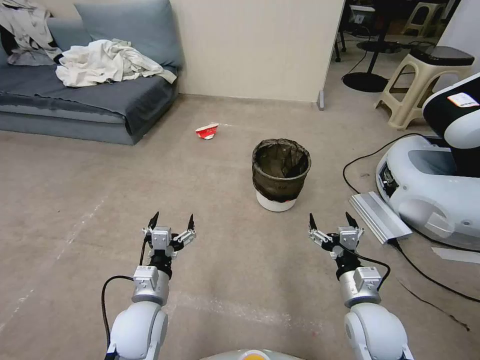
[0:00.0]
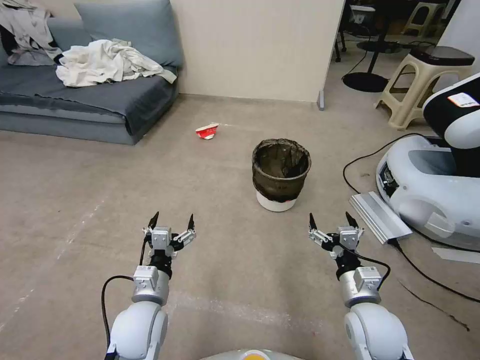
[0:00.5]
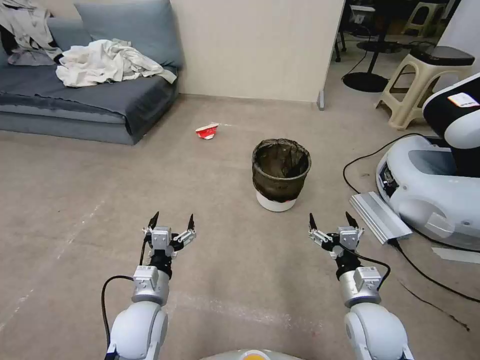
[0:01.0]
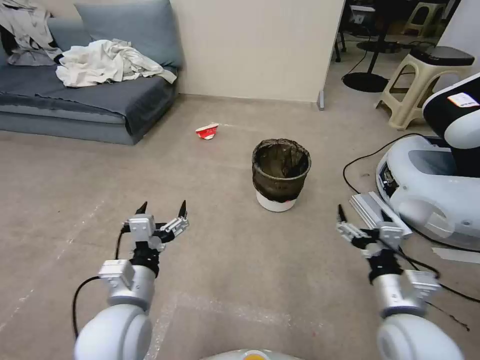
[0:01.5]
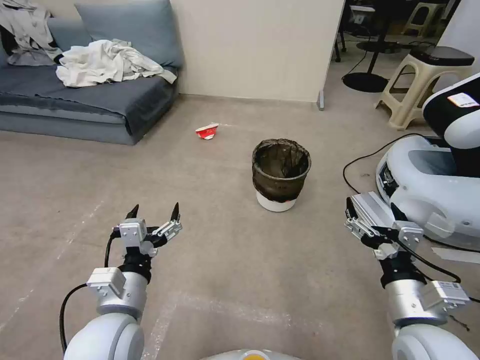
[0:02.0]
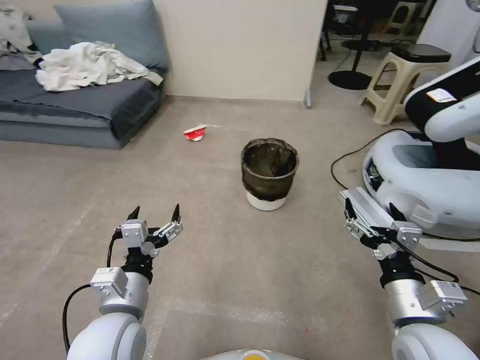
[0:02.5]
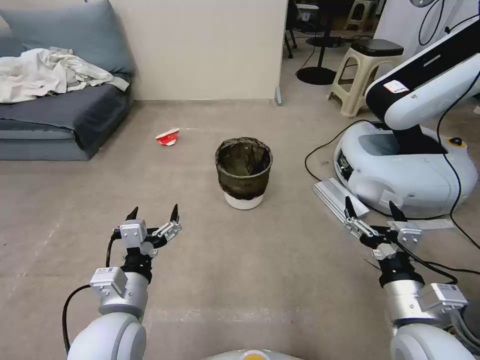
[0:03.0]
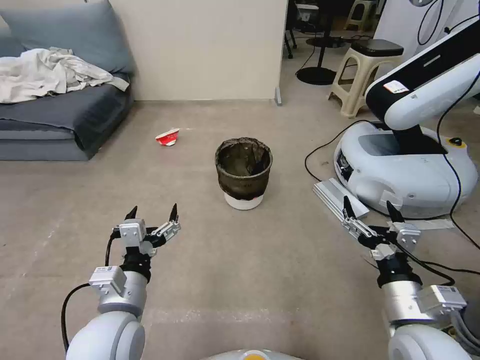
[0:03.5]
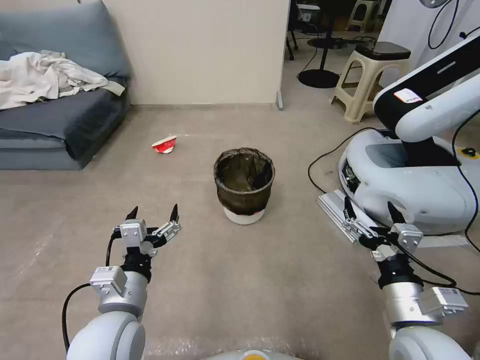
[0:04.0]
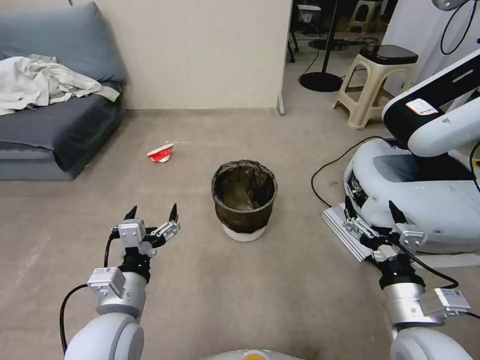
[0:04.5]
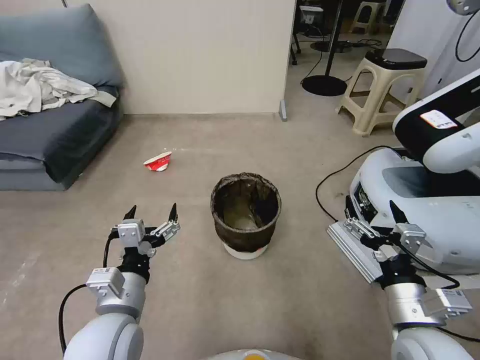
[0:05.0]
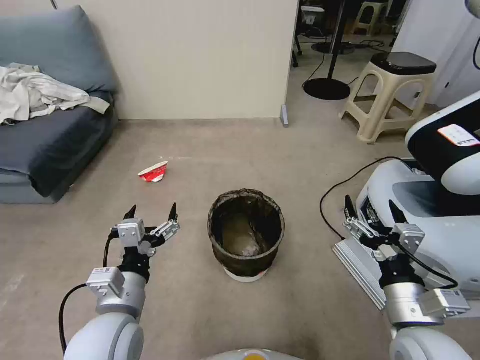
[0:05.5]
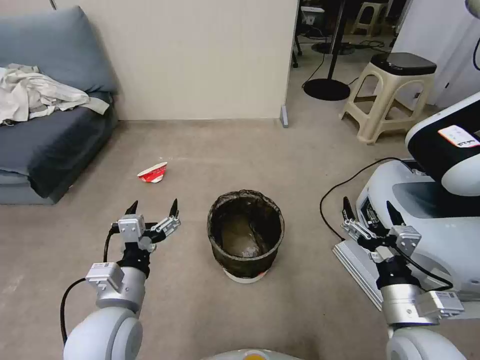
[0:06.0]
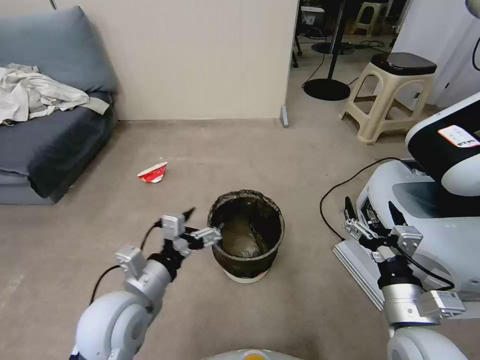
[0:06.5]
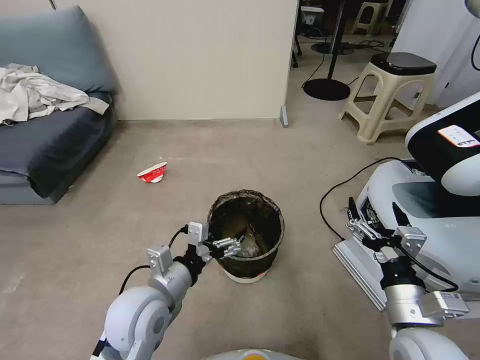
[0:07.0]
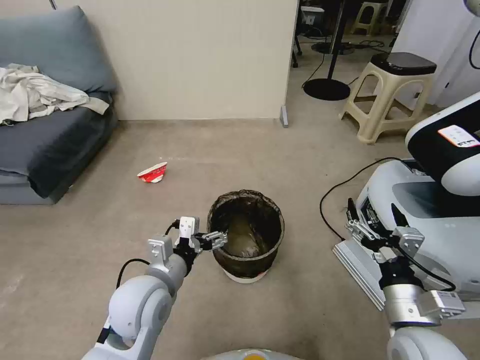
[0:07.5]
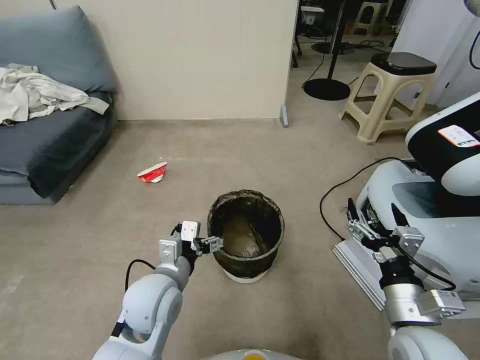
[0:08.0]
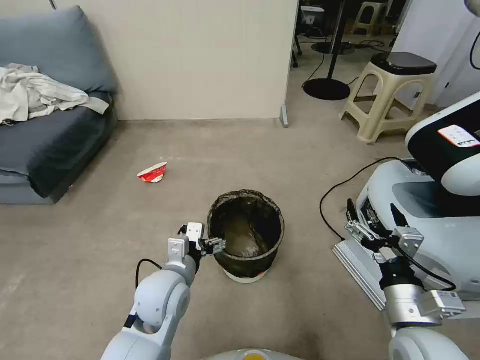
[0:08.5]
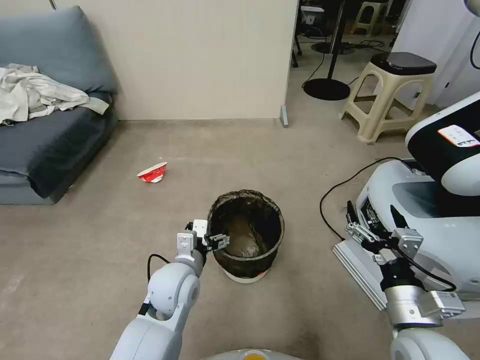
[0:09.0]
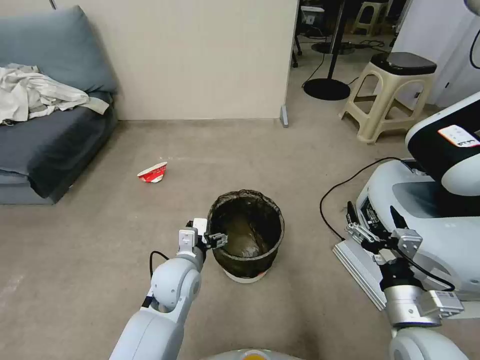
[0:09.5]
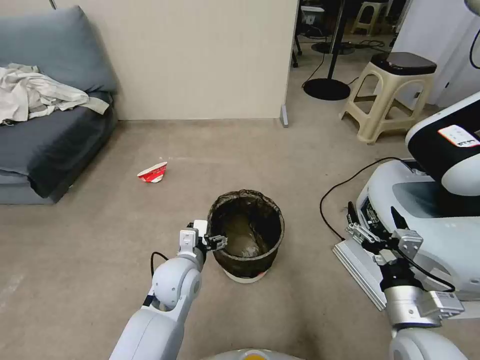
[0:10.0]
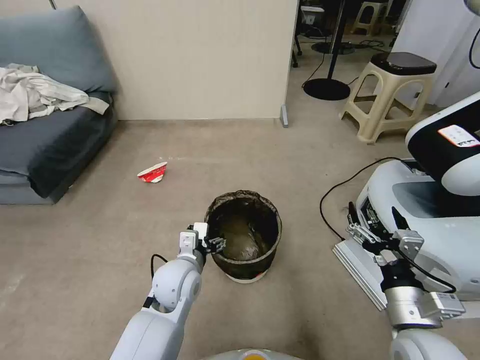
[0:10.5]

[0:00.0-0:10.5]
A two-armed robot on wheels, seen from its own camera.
Task of the whole recording: Pick up the trash can from the floor.
0:06.5 to 0:08.5: The left gripper heads downward, forward and to the right, covering some 10 cm.
0:08.5 to 0:10.5: The grippers make only small movements.

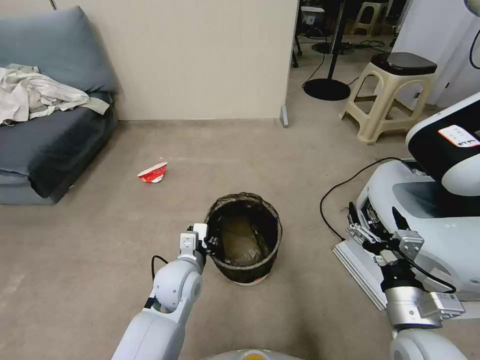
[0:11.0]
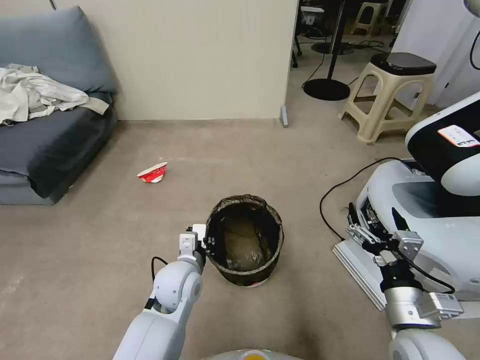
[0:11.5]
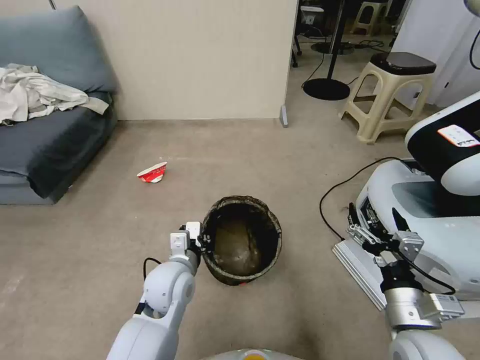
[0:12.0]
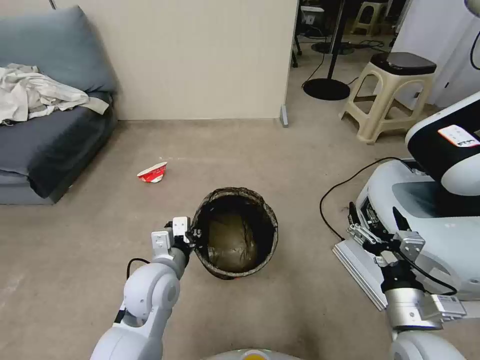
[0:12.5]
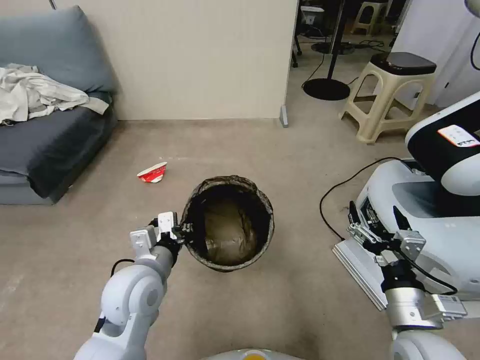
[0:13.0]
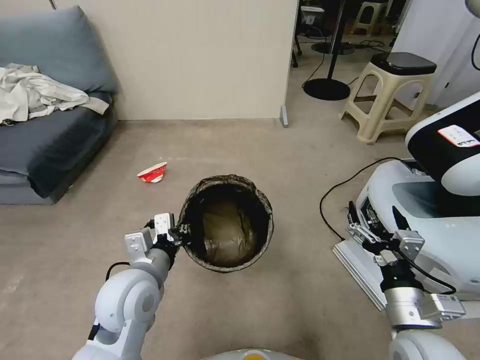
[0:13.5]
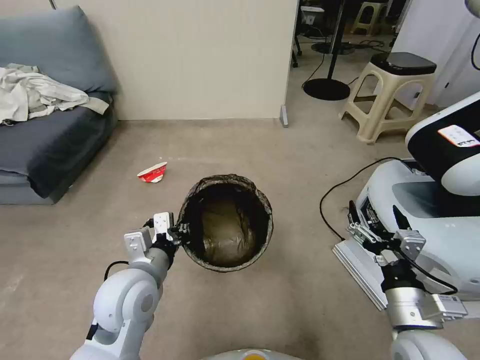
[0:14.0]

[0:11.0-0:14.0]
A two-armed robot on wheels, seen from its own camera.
Task of the whole recording: Pick up the trash can from the floor.
0:11.0 to 0:12.5: The left gripper moves upward, approximately 5 cm.
0:12.5 to 0:14.0: The left gripper ends up approximately 5 cm from where it was.

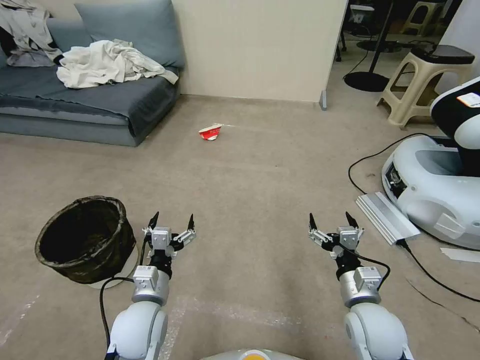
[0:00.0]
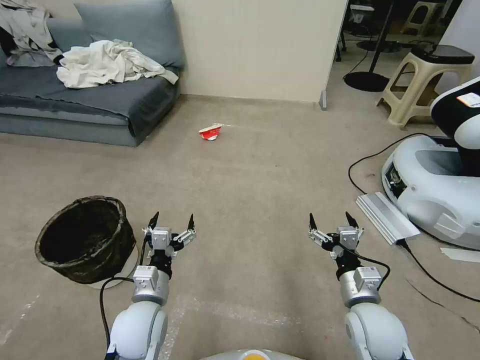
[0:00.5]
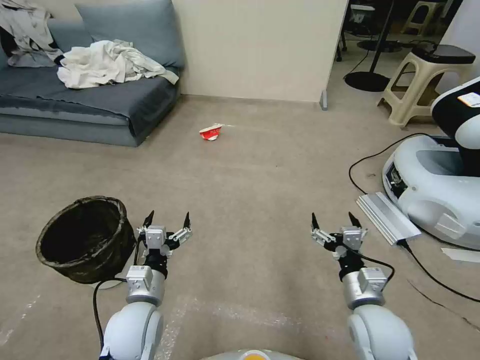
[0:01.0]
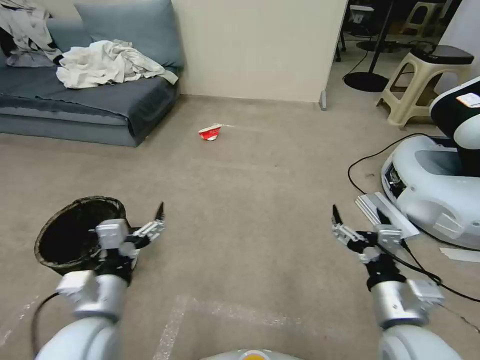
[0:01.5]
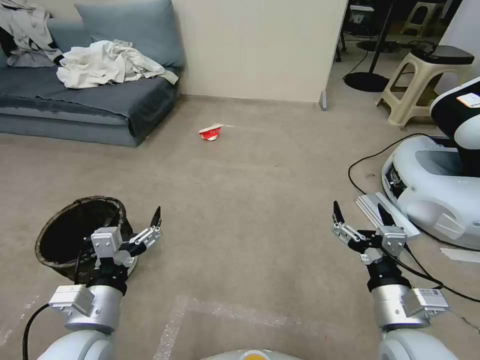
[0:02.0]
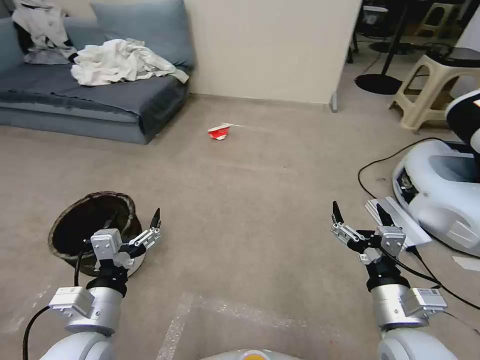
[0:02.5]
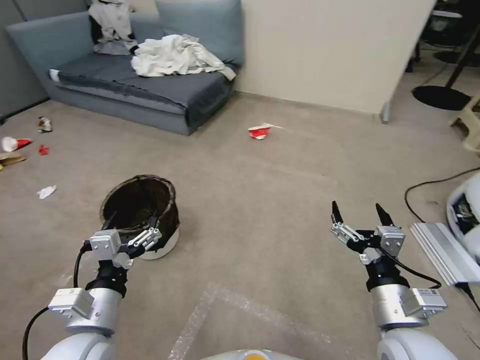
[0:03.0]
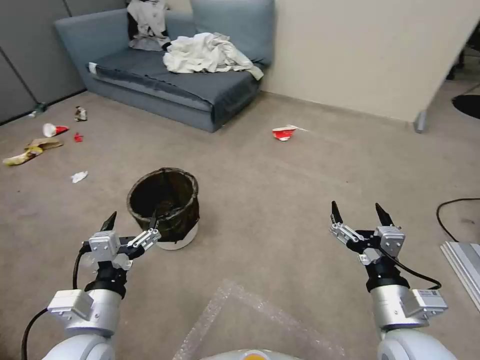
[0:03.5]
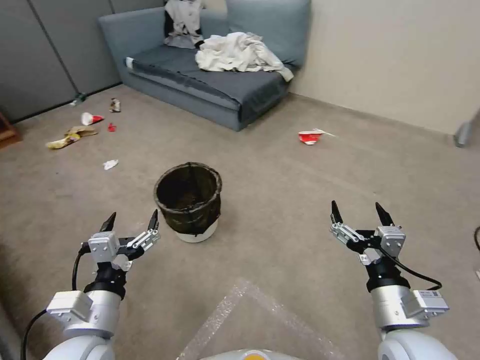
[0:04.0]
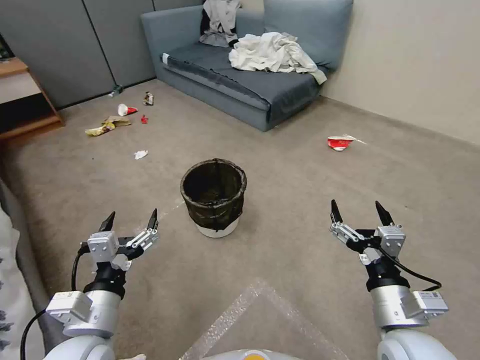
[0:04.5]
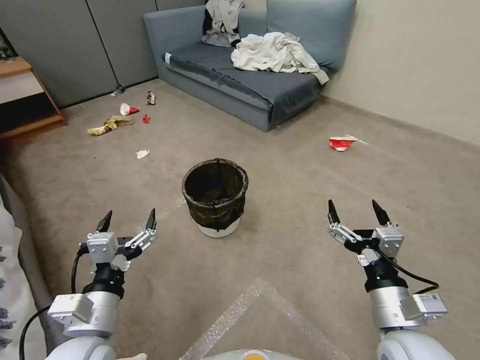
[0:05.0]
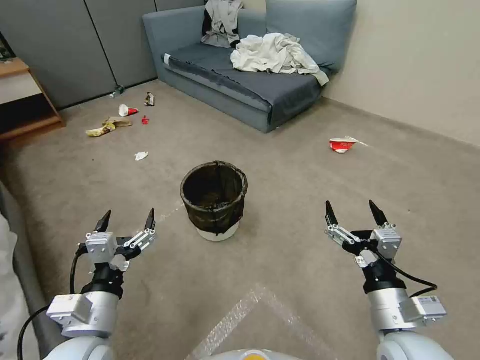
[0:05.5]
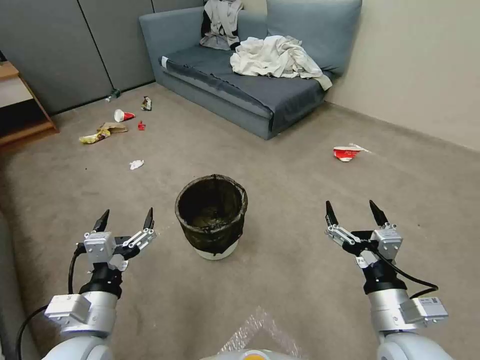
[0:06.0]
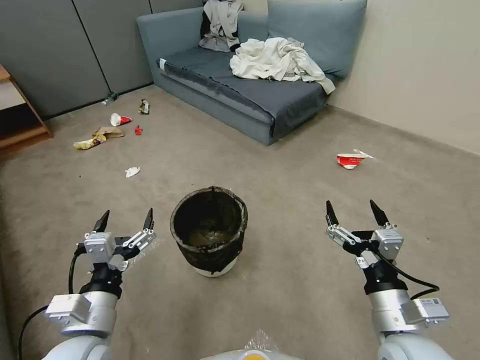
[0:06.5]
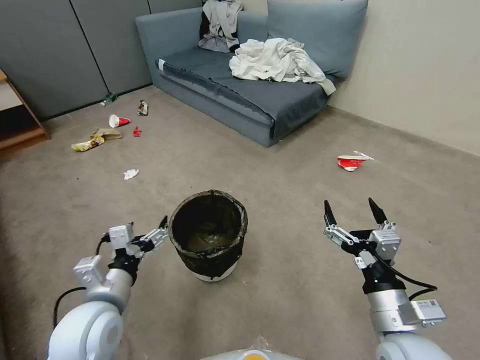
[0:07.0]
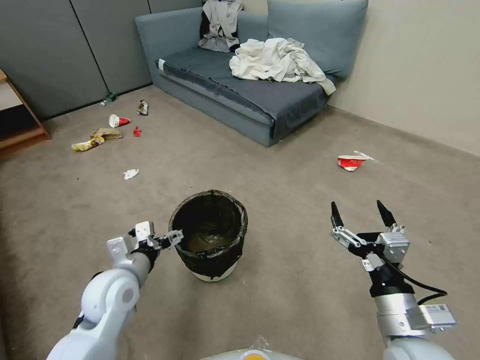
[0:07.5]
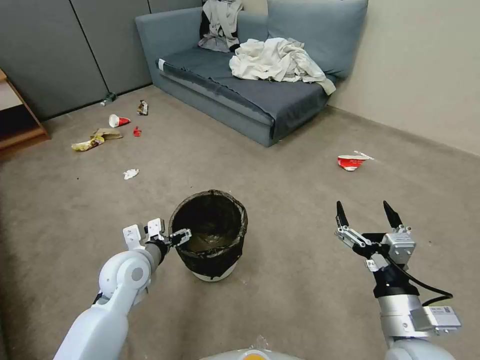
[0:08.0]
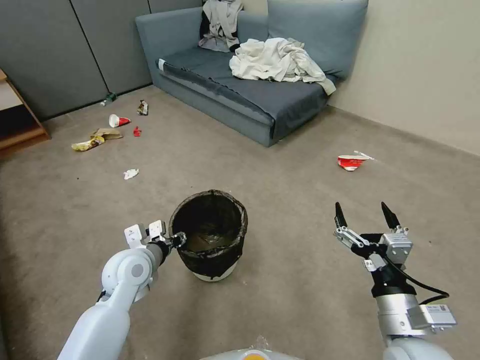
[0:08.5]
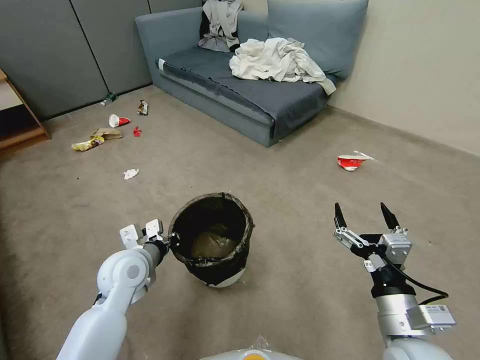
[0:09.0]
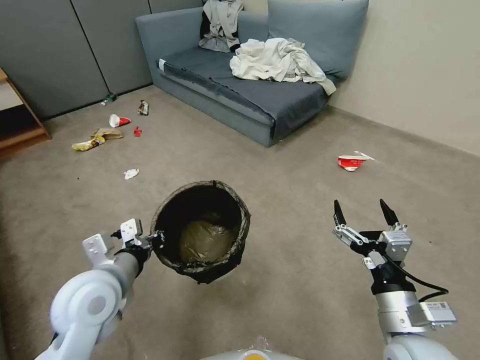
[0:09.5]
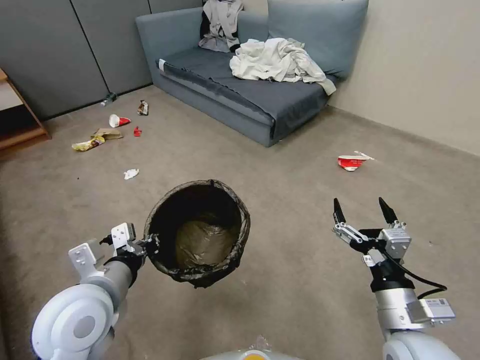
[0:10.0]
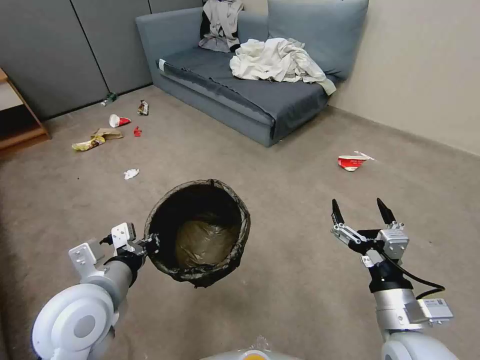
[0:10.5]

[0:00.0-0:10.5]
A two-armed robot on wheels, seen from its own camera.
Task of the whole recording: Pick up the trash can from the floor.
0:06.5 to 0:08.5: The left gripper goes about 15 cm forward, and closes its fingers.
0:08.5 to 0:10.5: The left gripper moves backward and upward, roughly 15 cm, and closes up.

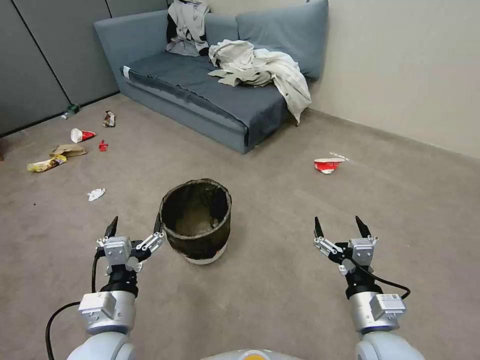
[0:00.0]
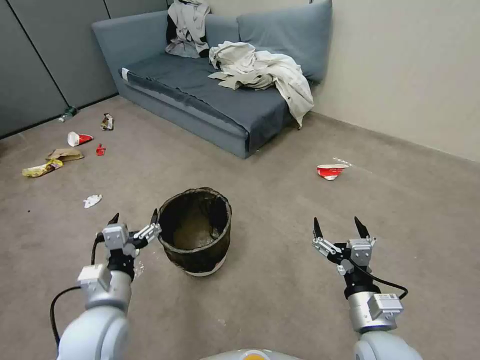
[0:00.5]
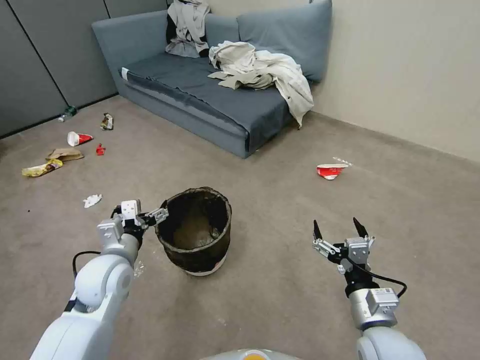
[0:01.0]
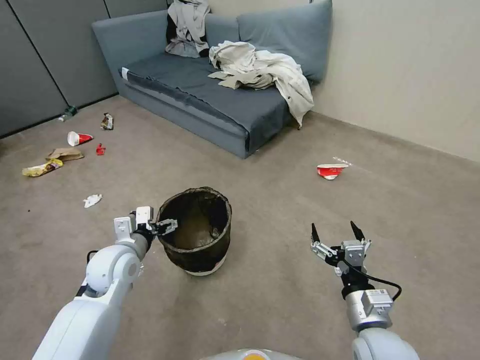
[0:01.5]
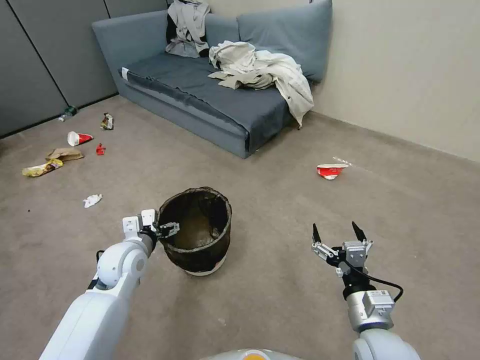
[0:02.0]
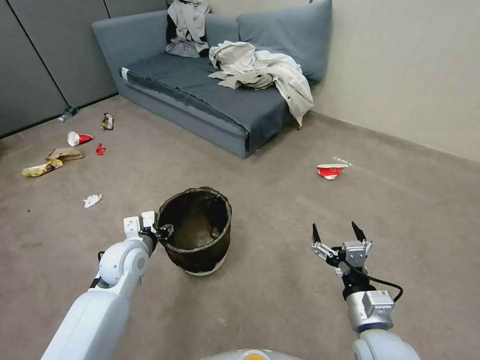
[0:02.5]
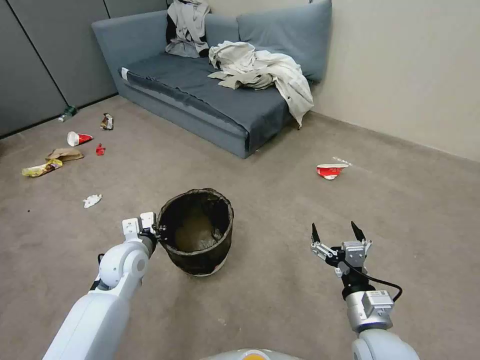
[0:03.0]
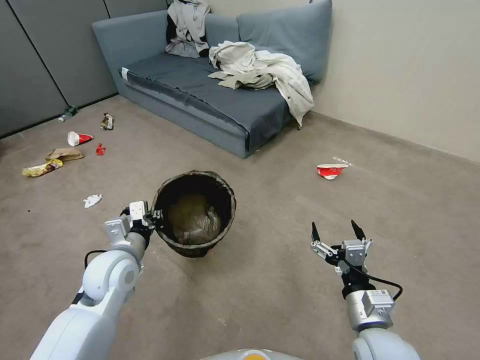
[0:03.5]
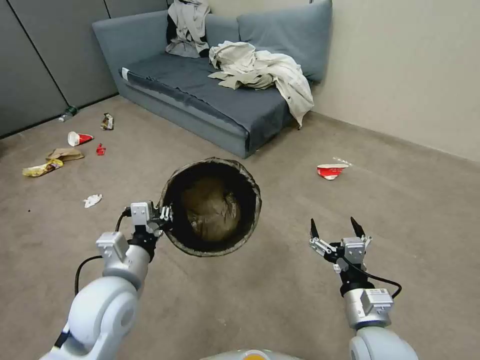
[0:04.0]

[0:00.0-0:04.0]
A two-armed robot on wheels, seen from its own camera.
Task of the whole recording: Pick up the trash can from the floor.
0:00.0 to 0:02.0: The left gripper goes some 15 cm forward.
0:02.0 to 0:04.0: The left gripper shifts roughly 15 cm backward and upward, and closes.
